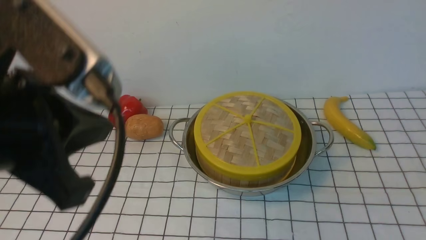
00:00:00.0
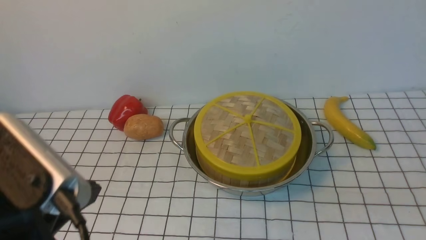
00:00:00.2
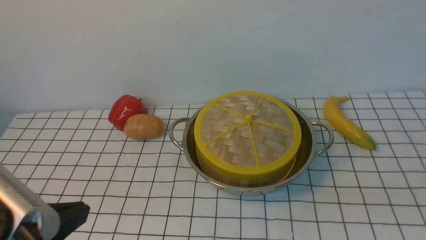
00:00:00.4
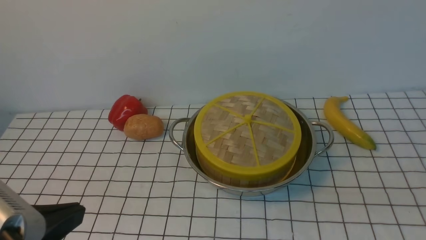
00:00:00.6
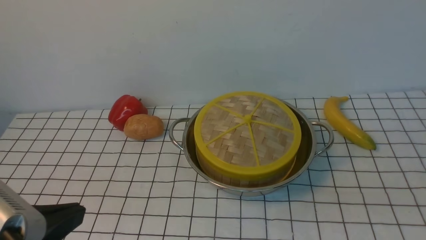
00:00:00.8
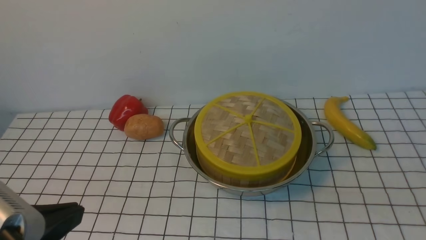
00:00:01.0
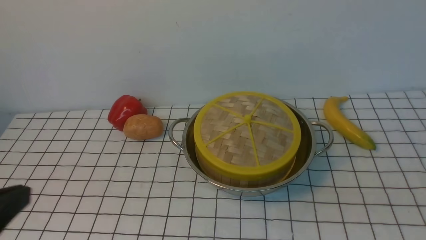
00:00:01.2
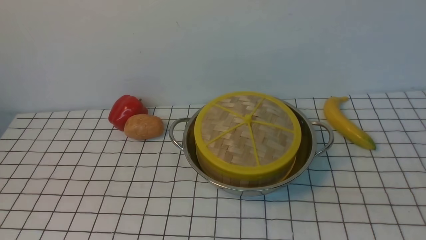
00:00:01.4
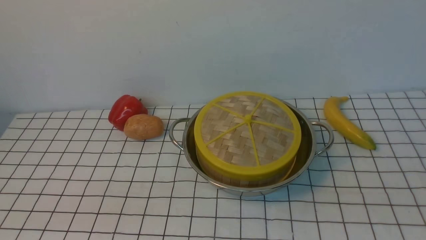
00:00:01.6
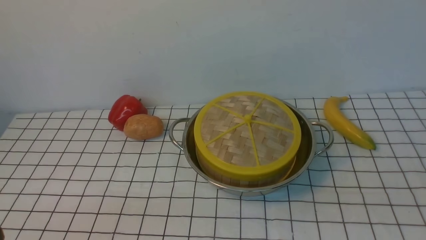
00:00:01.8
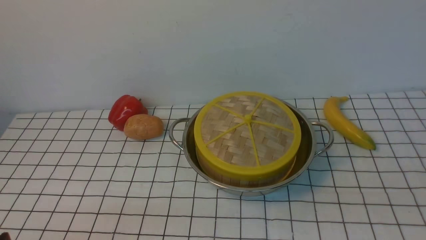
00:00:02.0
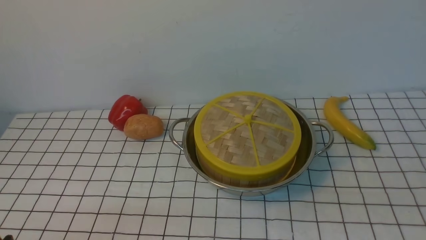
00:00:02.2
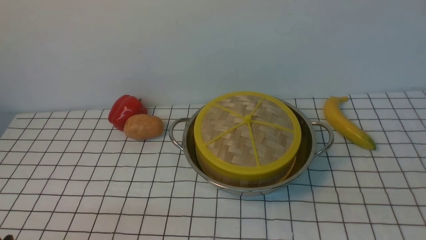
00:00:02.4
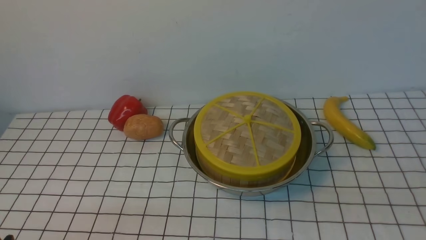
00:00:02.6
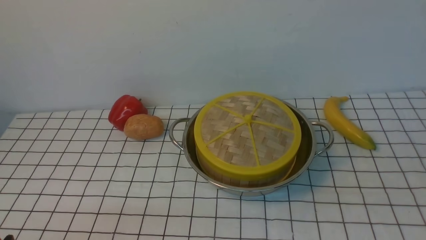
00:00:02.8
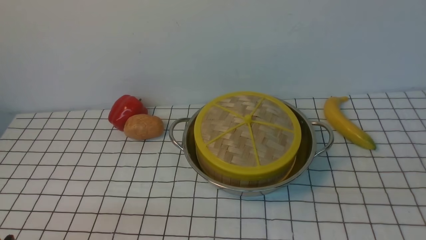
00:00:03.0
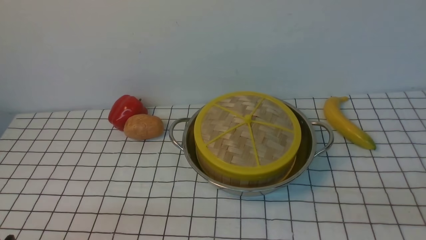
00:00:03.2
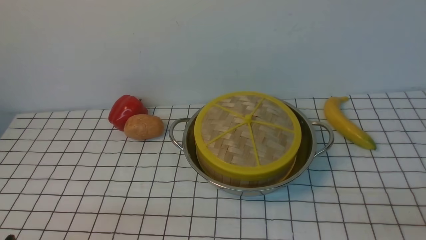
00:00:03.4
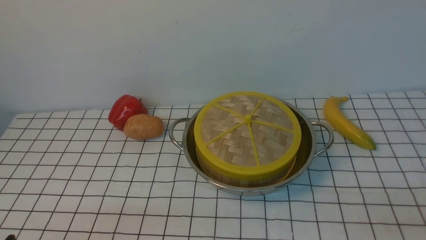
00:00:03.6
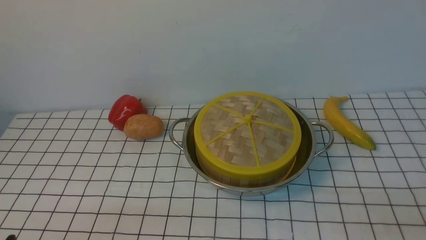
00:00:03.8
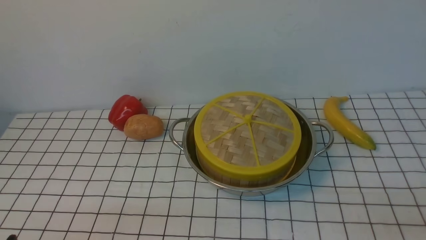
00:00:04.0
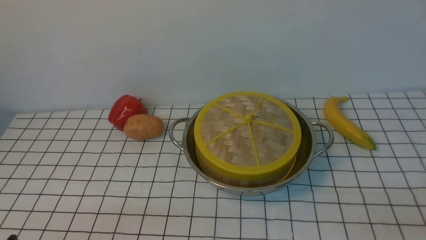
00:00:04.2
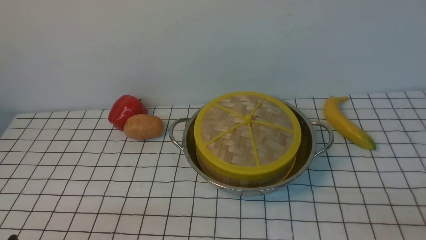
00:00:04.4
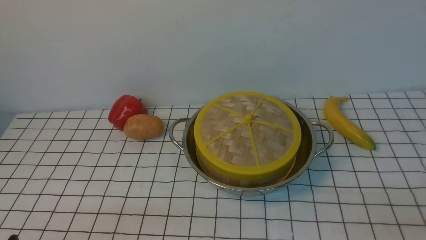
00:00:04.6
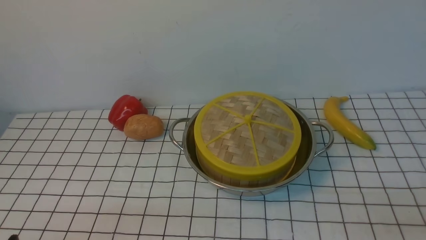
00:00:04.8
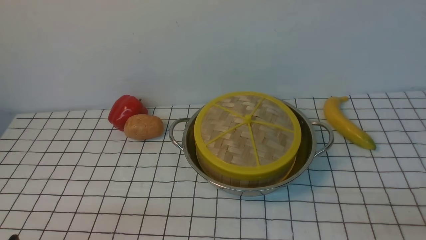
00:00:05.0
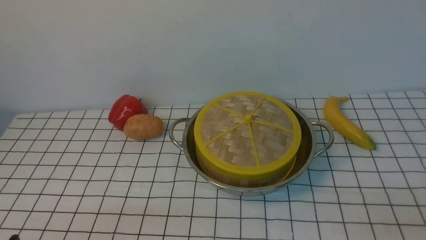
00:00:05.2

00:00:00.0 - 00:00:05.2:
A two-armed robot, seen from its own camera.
Task of the whole recording: place the steamer in the pot on the white tablecloth, and put the lid on the steamer.
00:00:00.0 - 00:00:01.8: The left gripper travels downward, to the left and backward by about 25 cm.
00:00:03.4 - 00:00:05.2: The two grippers keep their place.
